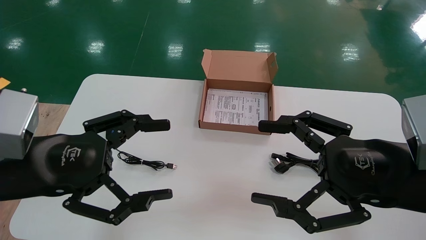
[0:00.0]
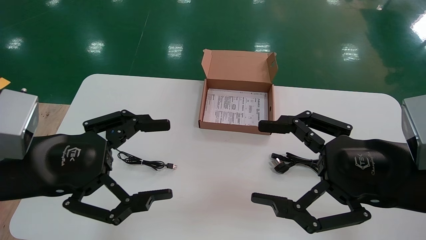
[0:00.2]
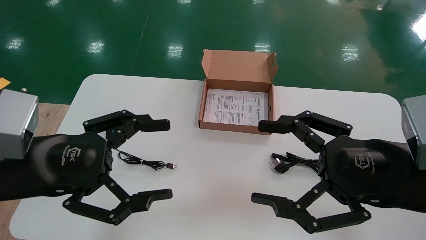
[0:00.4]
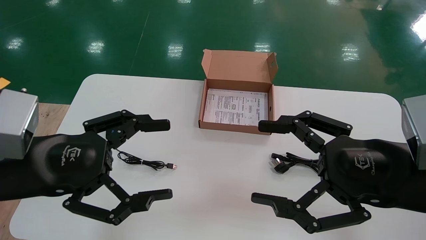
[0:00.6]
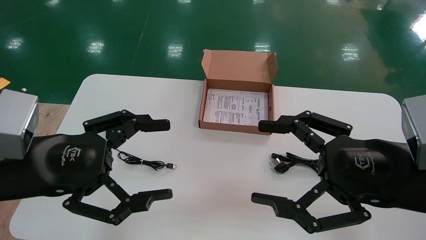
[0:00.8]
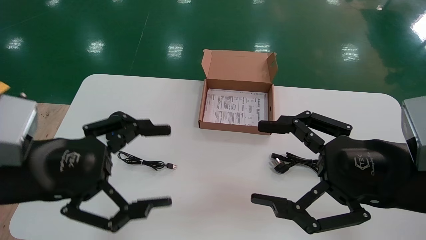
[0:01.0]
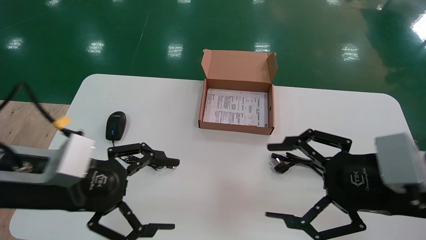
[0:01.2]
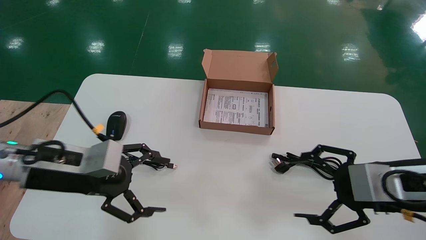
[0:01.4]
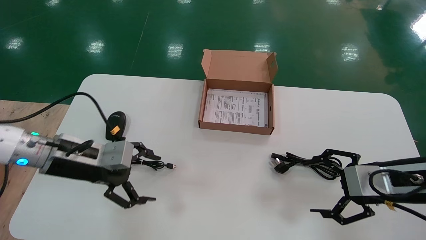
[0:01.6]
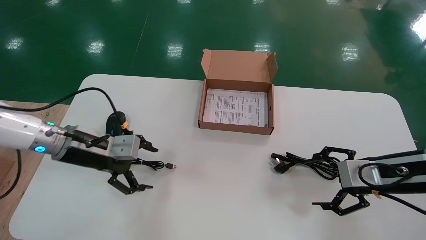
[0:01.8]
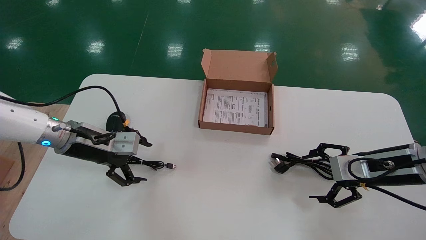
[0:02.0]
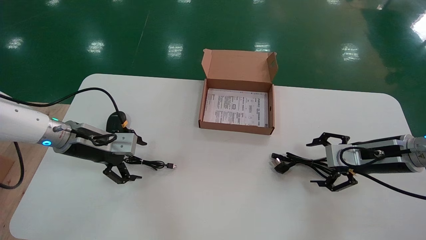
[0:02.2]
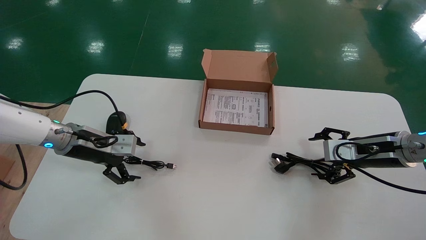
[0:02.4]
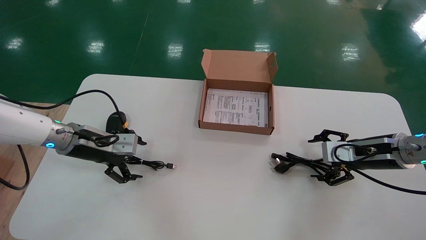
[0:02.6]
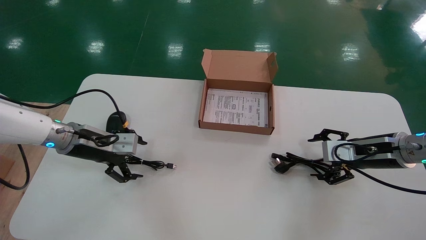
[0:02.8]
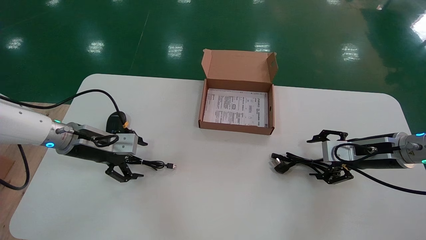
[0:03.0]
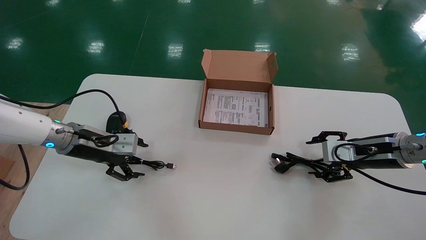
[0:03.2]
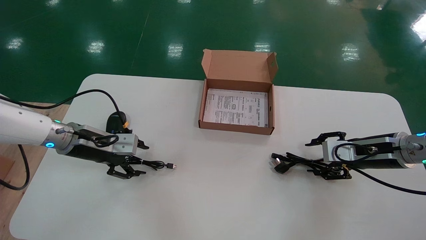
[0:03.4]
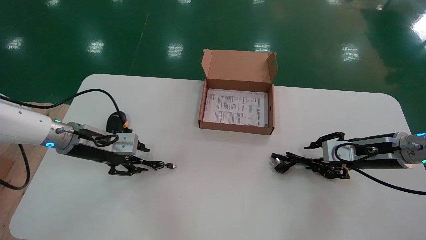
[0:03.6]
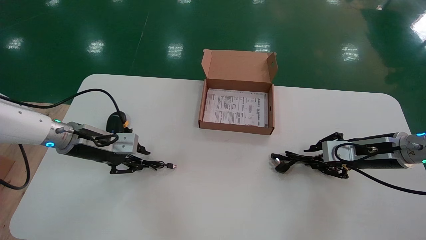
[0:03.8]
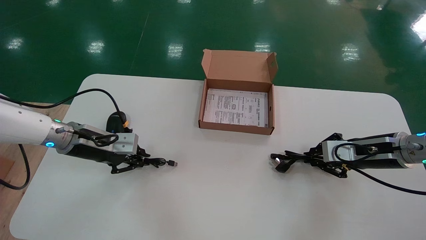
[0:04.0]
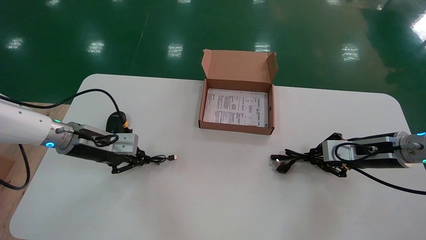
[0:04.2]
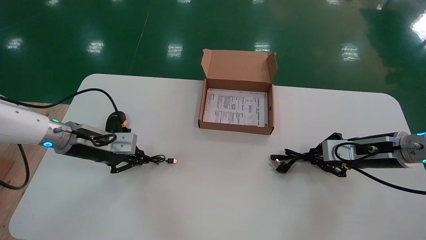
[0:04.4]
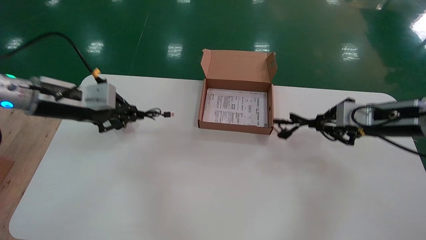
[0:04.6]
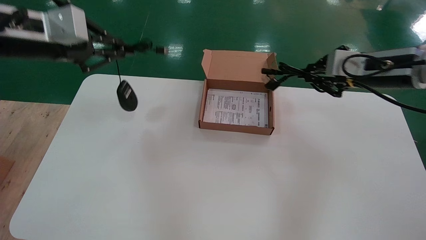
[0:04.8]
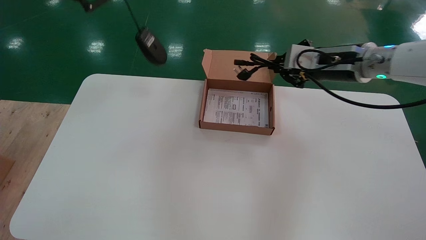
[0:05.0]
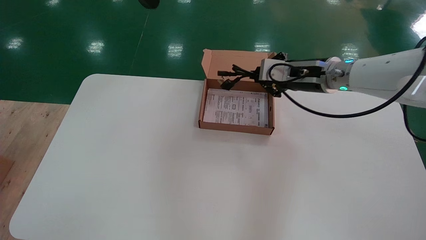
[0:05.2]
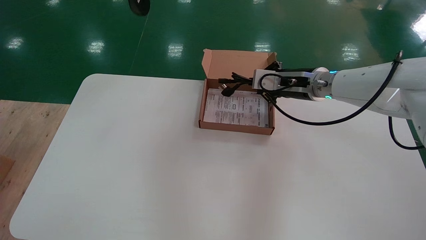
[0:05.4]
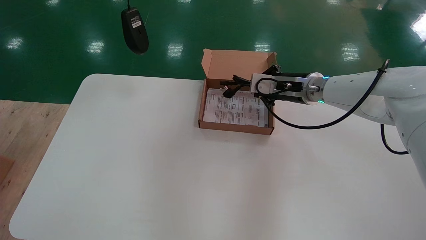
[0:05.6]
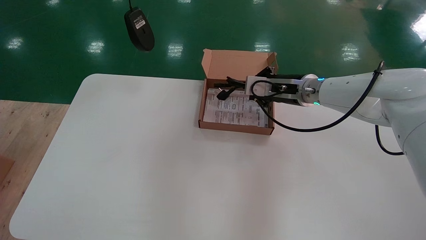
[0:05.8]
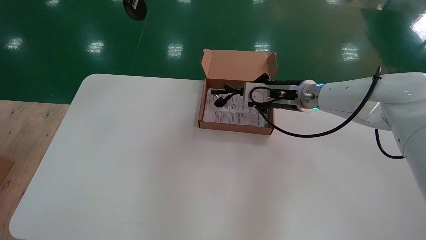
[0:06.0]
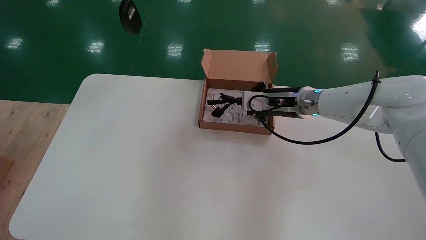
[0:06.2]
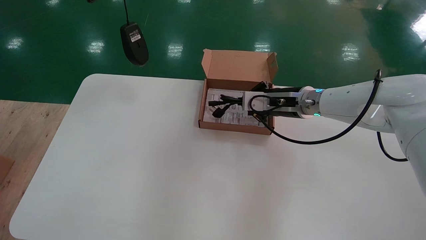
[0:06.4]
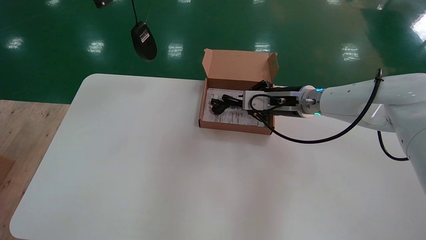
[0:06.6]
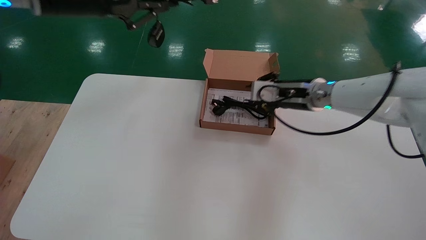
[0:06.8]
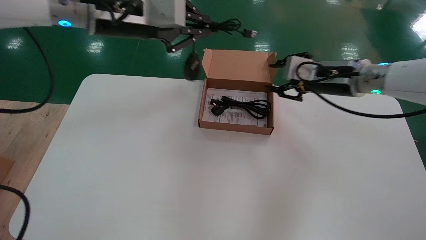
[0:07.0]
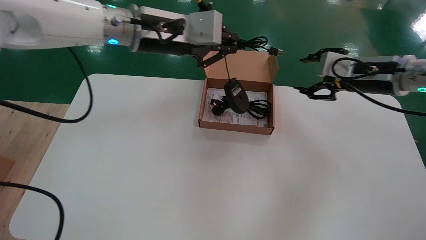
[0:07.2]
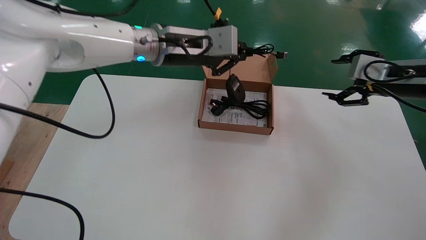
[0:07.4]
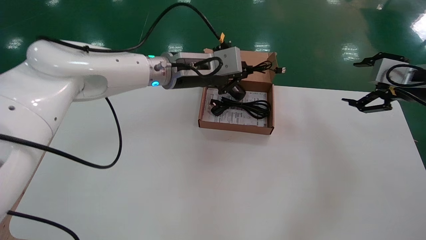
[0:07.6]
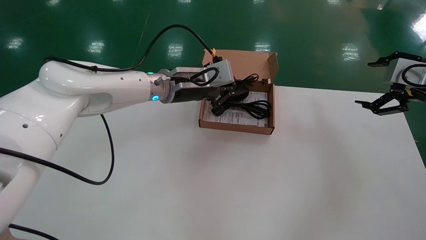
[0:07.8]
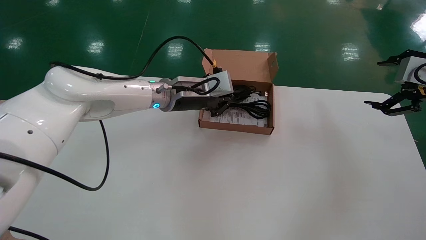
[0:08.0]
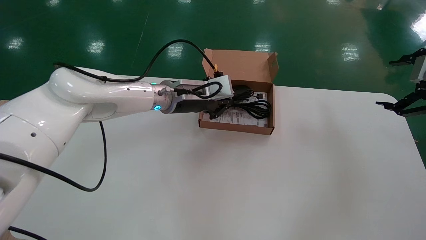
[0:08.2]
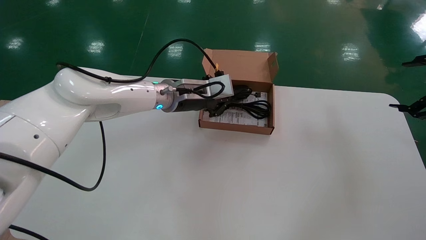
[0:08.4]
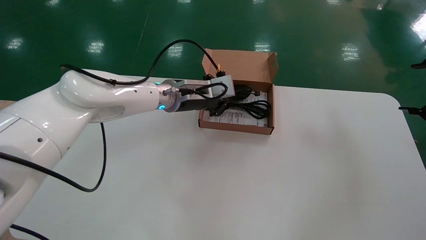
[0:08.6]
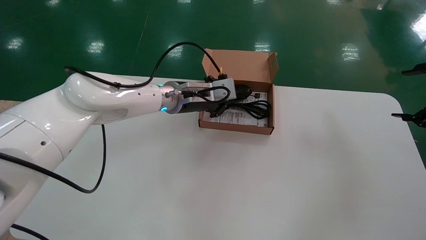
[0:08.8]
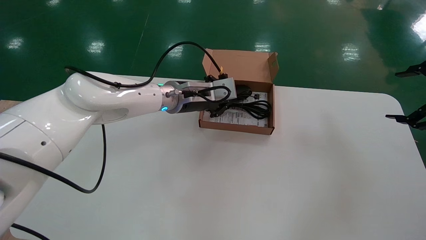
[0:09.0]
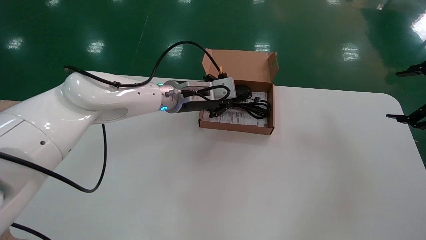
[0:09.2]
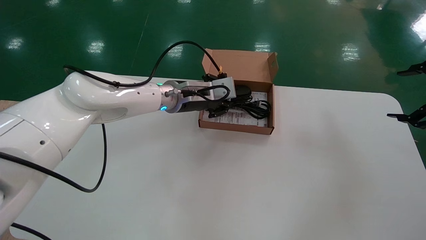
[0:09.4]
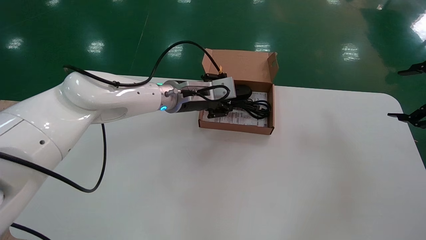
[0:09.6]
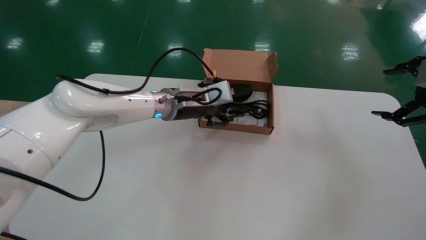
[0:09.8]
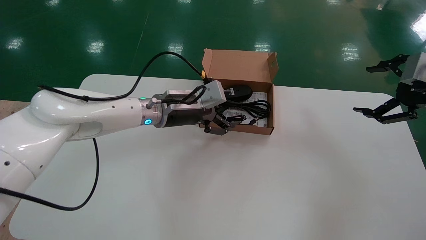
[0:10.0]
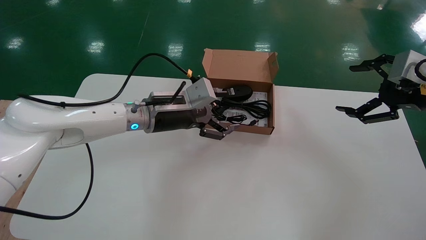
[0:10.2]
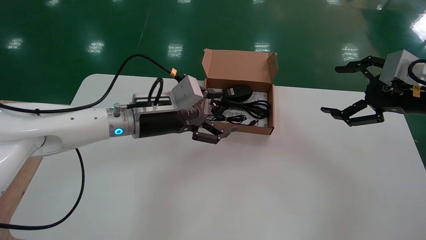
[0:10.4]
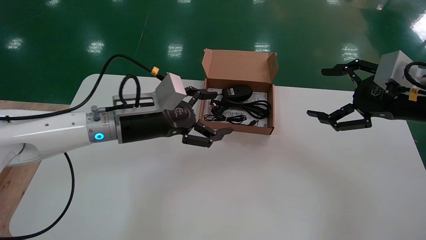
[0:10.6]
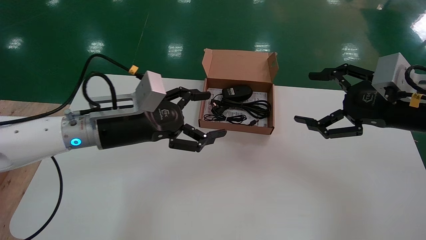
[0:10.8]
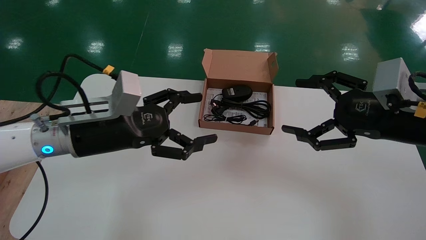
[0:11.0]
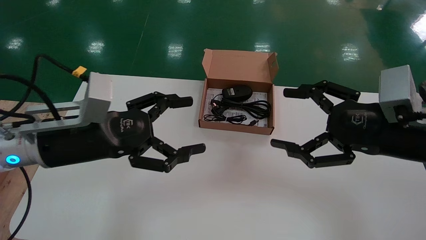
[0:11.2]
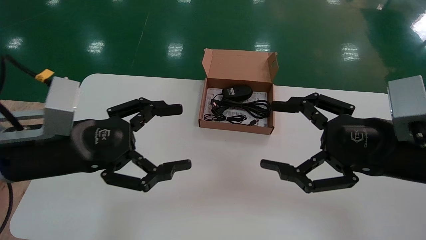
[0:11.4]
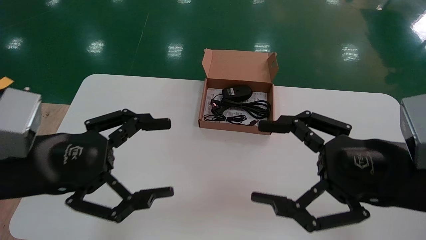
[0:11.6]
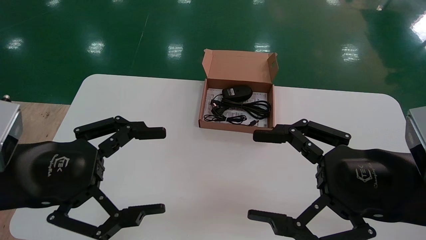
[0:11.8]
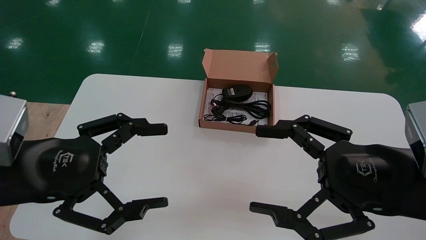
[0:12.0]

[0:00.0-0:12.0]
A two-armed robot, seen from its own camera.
Step, 0:01.2 to 0:04.4: Simultaneously pick up the mouse and power cord from the accessory packaging area.
Step, 0:04.6 to 0:10.0: Place the mouse and power cord into the box.
0:00.0 to 0:01.6: The right gripper moves forward, to the right and downward, about 15 cm; the left gripper shifts roughly 15 cm forward and downward.
0:01.6 to 0:03.0: The grippers both shift forward by about 10 cm.
0:03.0 to 0:04.4: The right gripper closes up, while the left gripper shifts by approximately 5 cm, and closes its fingers.
0:04.4 to 0:06.0: The right gripper is displaced to the left and forward by about 20 cm; the left gripper goes roughly 25 cm upward.
0:06.0 to 0:07.6: The left gripper shifts approximately 30 cm to the right, downward and forward, while the right gripper moves to the right and backward, roughly 25 cm, and opens up.
0:07.6 to 0:09.0: The left gripper is displaced downward by roughly 5 cm. The right gripper moves backward and to the right, roughly 10 cm.
0:09.0 to 0:10.4: The left gripper shifts about 10 cm backward and to the left, and opens up; the right gripper is displaced to the left by about 10 cm.
0:10.4 to 0:12.0: The left gripper shifts approximately 25 cm backward and to the left; the right gripper shifts some 20 cm backward, to the left and downward.

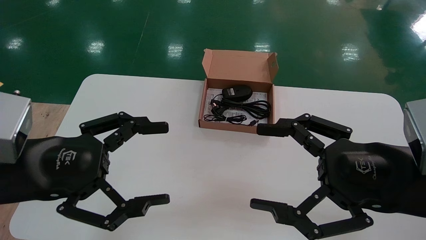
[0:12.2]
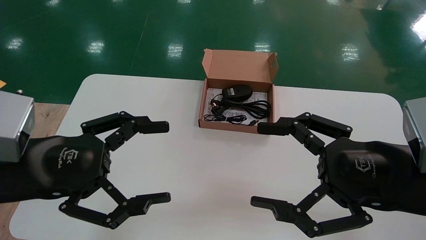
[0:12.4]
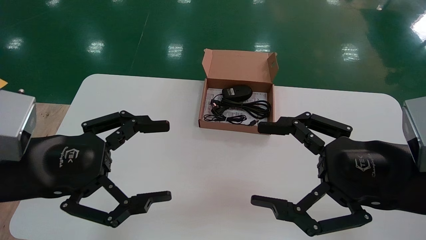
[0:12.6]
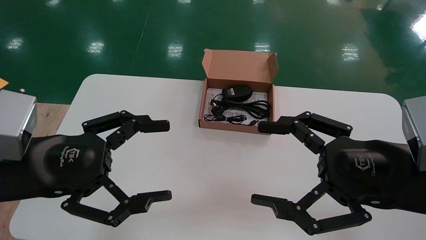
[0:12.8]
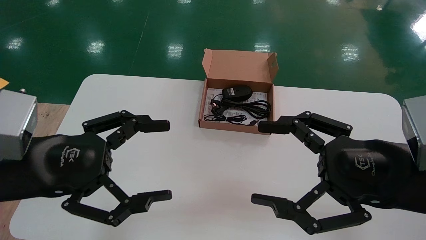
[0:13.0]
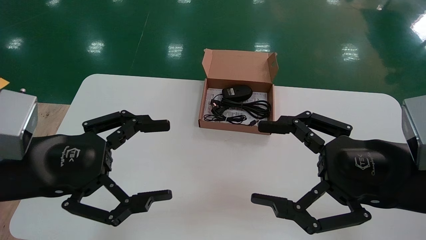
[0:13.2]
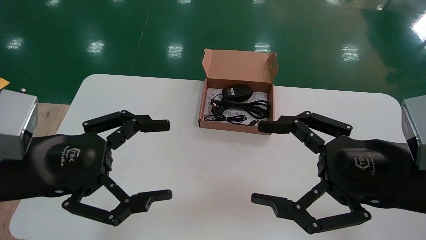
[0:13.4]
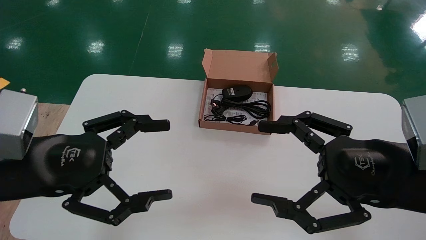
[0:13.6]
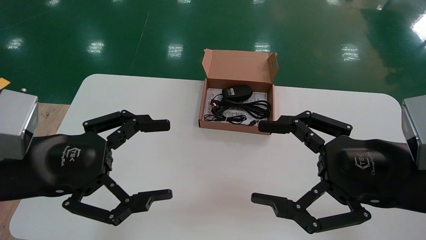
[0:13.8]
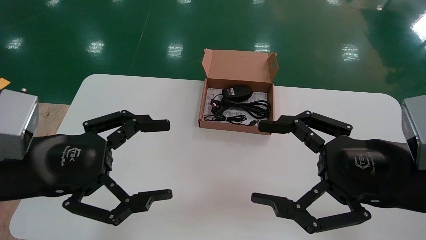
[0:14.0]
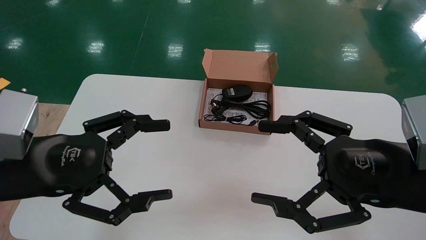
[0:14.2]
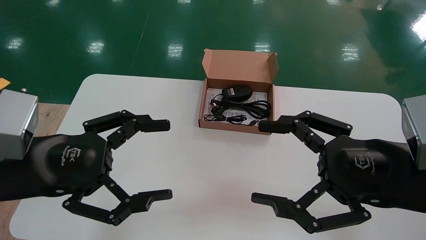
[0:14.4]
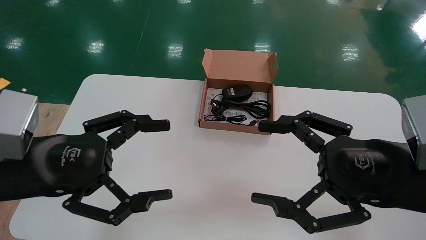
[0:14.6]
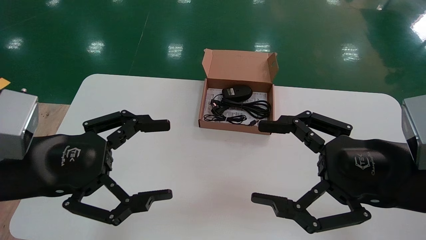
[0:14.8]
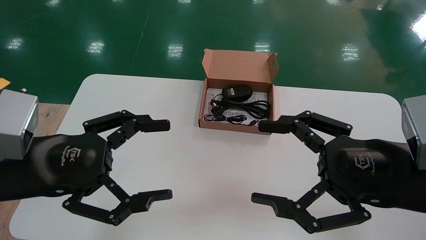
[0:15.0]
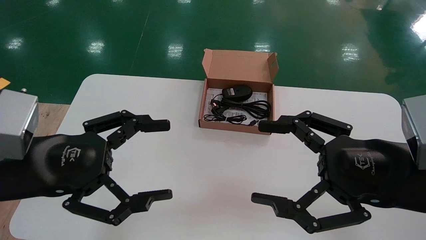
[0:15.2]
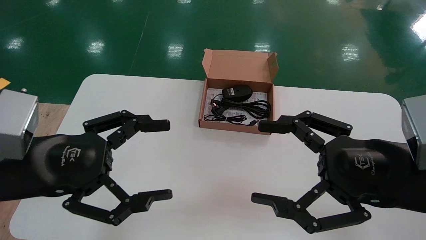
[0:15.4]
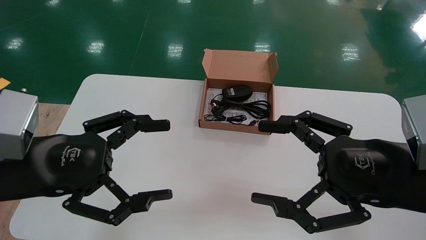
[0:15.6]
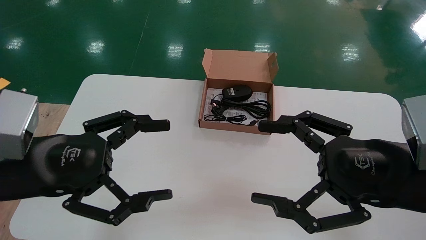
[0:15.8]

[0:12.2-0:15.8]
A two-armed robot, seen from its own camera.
0:12.2 to 0:15.8: Both grippers stay put.
